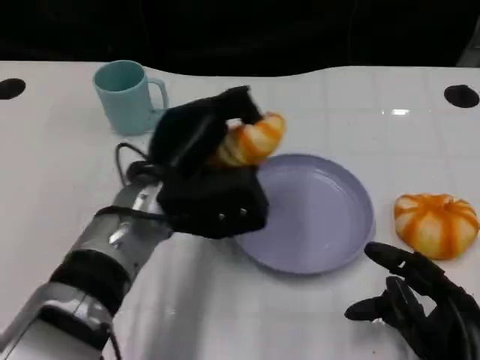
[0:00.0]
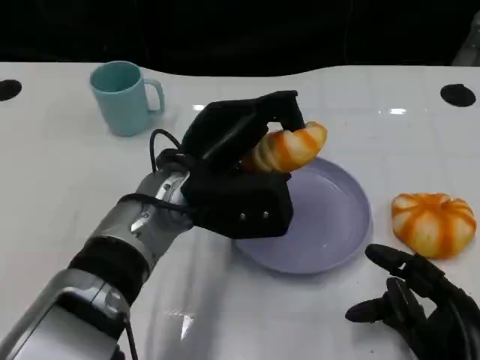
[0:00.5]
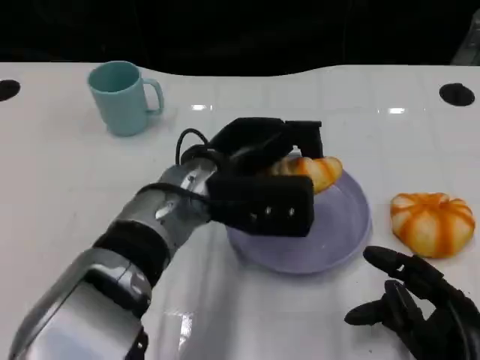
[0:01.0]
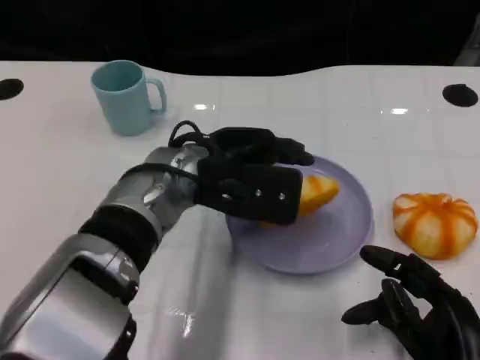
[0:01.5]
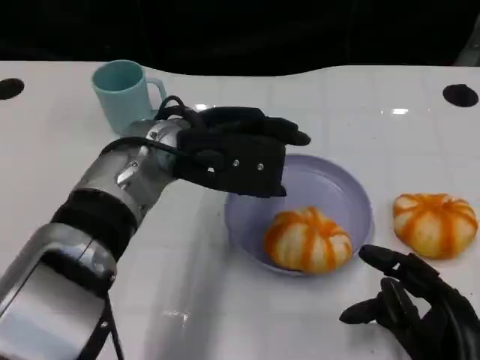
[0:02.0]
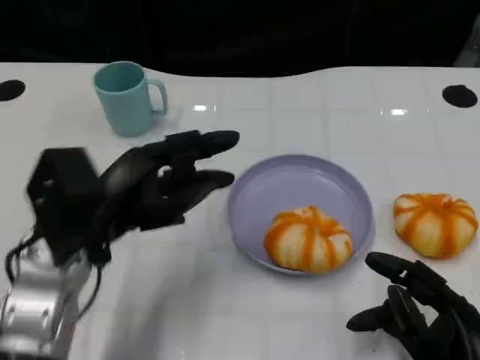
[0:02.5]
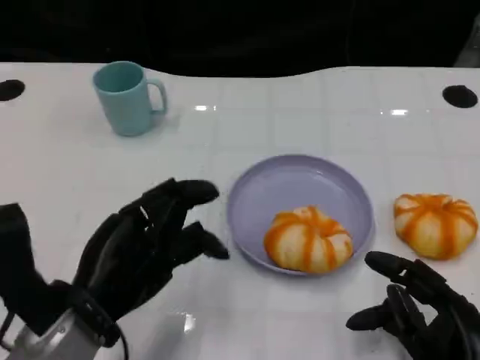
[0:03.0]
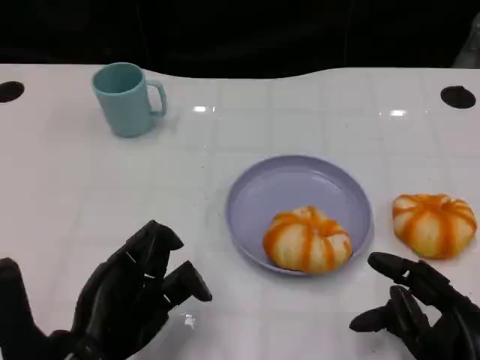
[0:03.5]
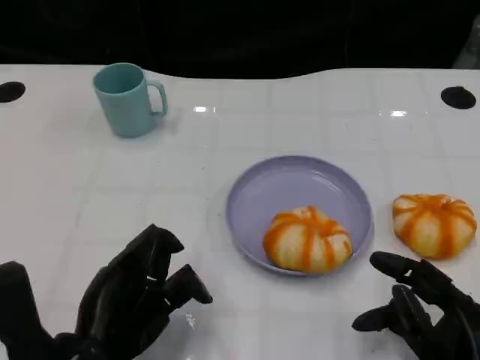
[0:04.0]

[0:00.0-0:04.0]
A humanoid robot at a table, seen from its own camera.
Task of the whole recording: Grasp the bread from the table and place it into the plate.
0.0 to 2.0 s: The left hand shifts by roughly 5 cm.
2.0 to 4.0 s: The left hand is displaced backward, downward and to the left by about 20 cm.

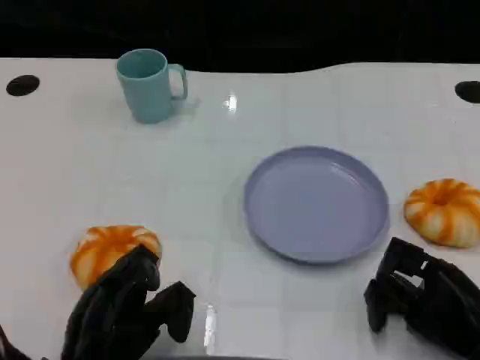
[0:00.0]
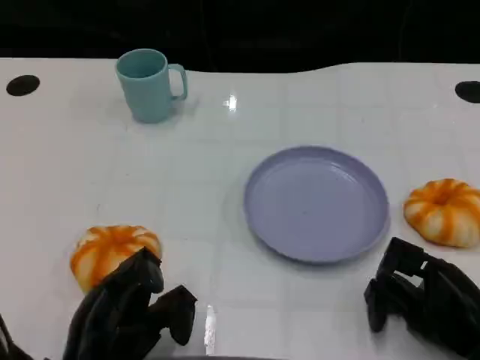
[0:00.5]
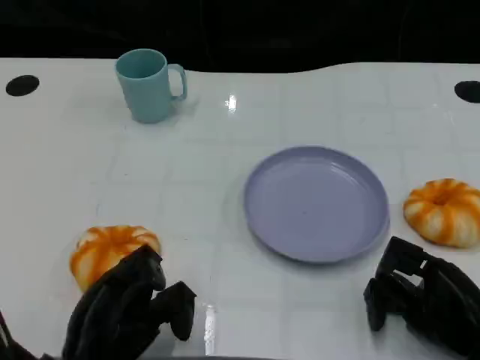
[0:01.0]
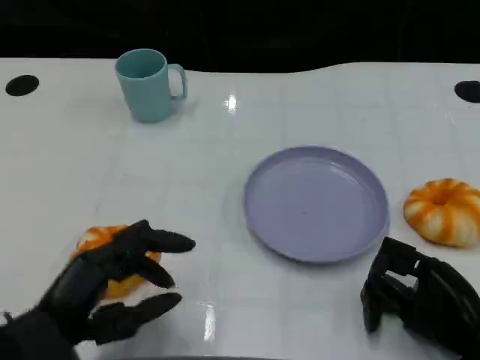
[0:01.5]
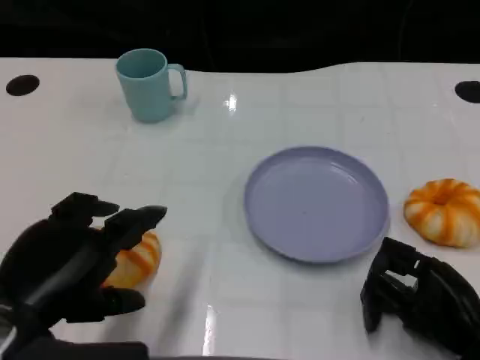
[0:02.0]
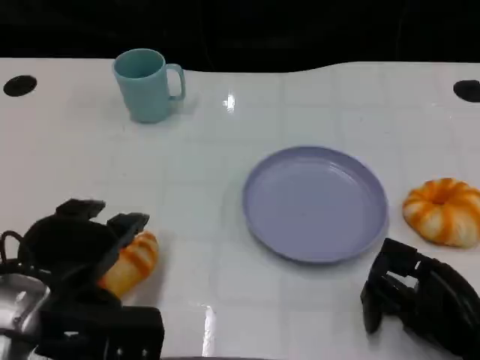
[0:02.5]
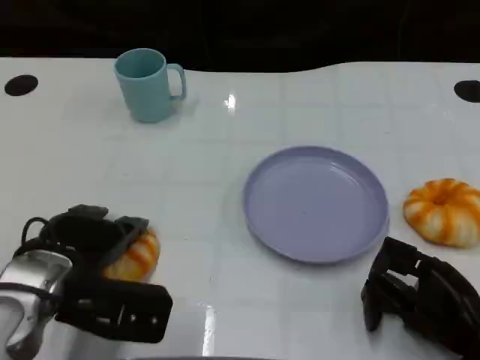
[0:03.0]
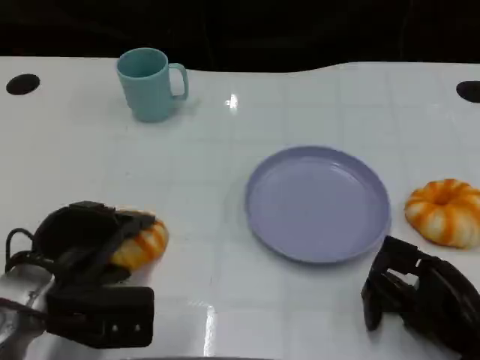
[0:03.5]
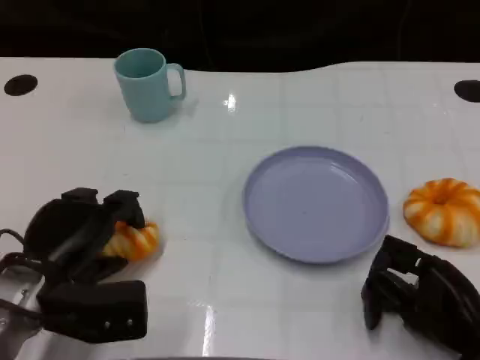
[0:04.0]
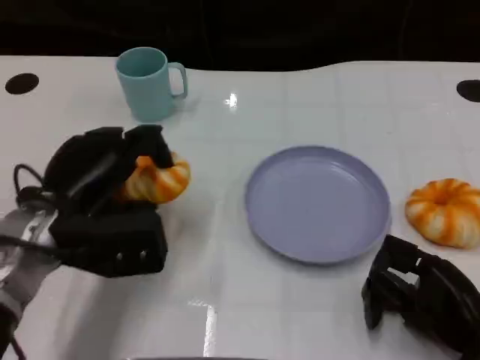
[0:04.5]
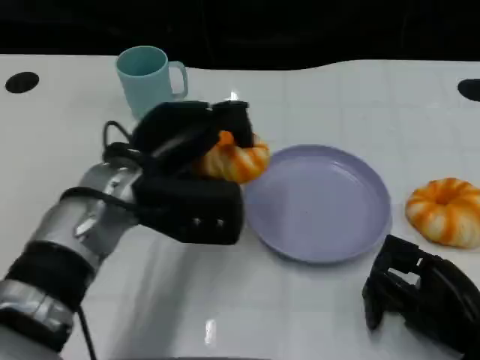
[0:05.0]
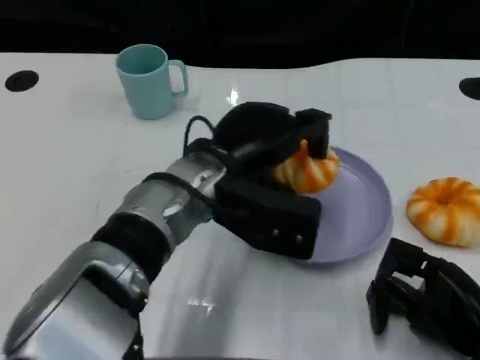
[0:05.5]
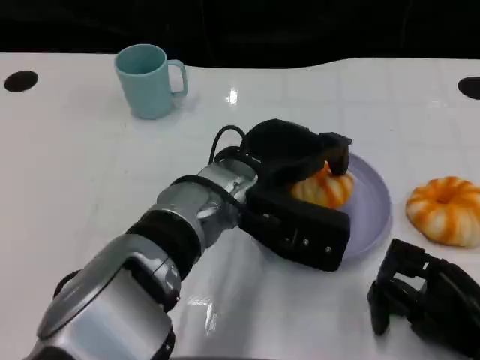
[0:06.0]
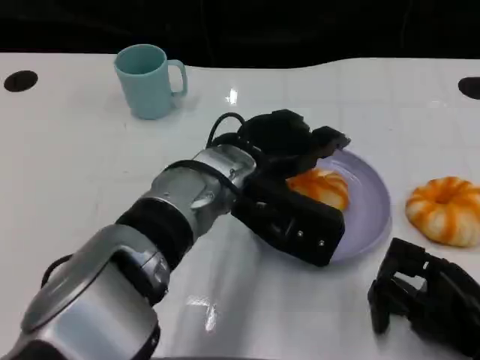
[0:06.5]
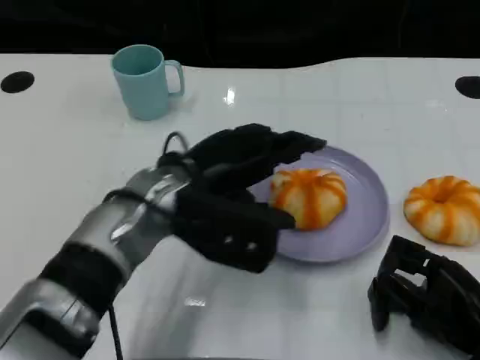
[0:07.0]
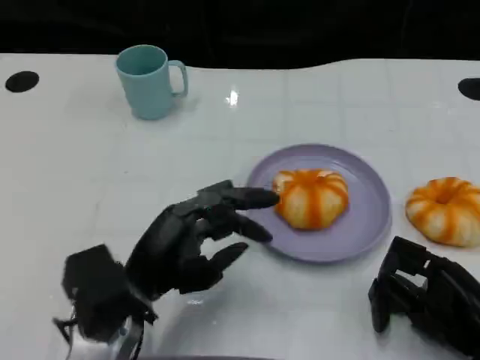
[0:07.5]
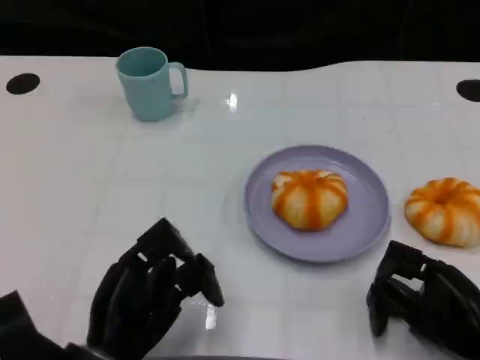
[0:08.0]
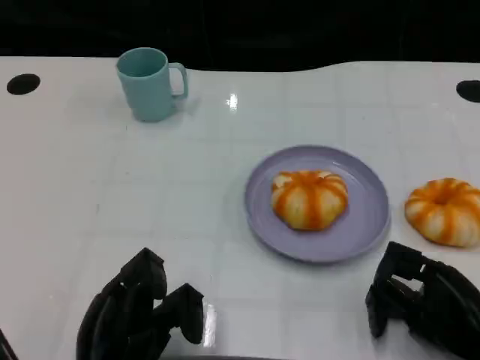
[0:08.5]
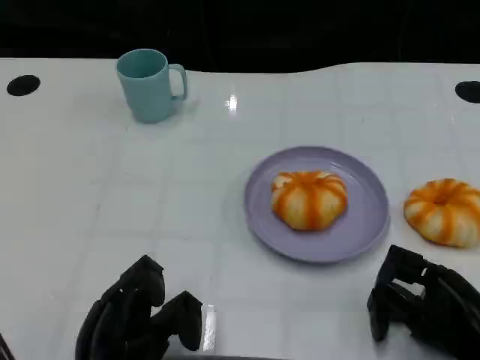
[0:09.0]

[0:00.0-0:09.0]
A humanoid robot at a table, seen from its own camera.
Task of the whole recording: Grasp the bread from the table and place it into the plate.
0.0 to 2.0 s: The left hand shifts approximately 10 cm upward.
2.0 to 4.5 s: The left hand shifts about 10 cm forward.
4.5 to 7.0 s: The left hand moves to the right, some 10 cm.
7.0 to 9.0 s: The left hand shifts roughly 20 cm backward, downward and to the left.

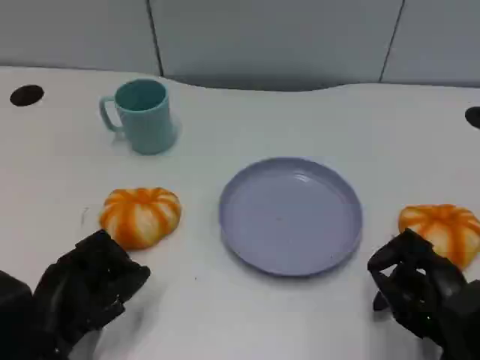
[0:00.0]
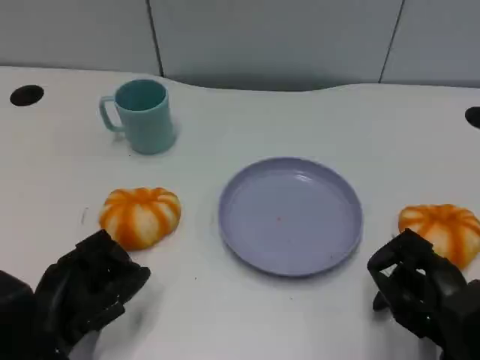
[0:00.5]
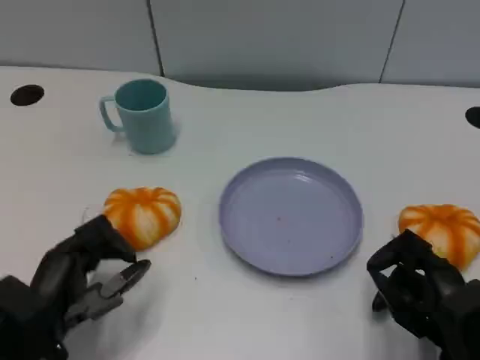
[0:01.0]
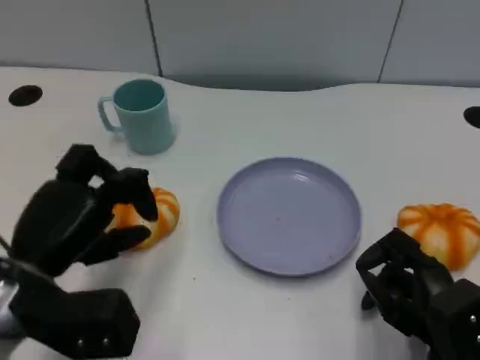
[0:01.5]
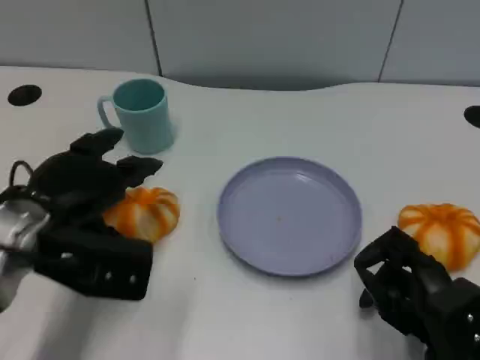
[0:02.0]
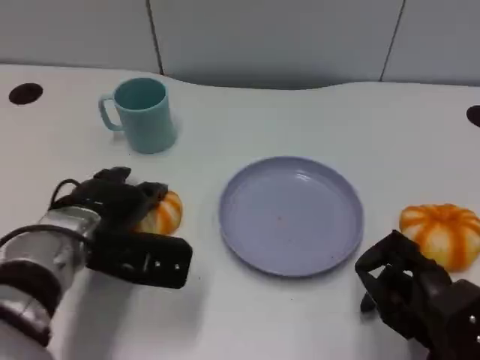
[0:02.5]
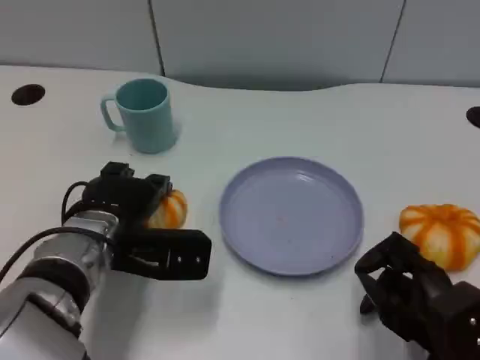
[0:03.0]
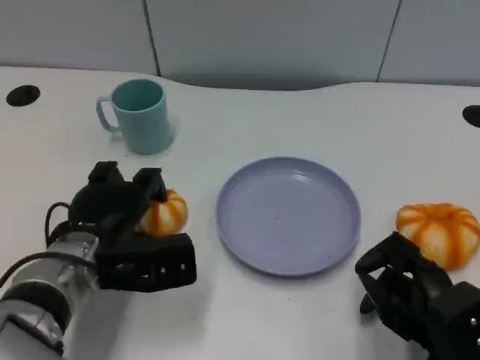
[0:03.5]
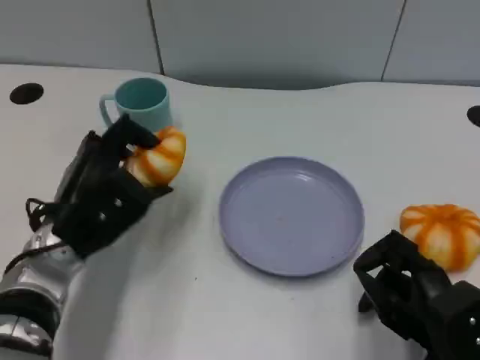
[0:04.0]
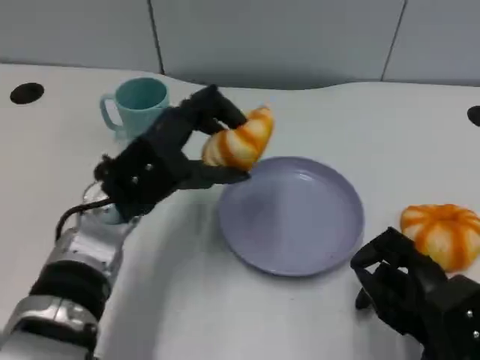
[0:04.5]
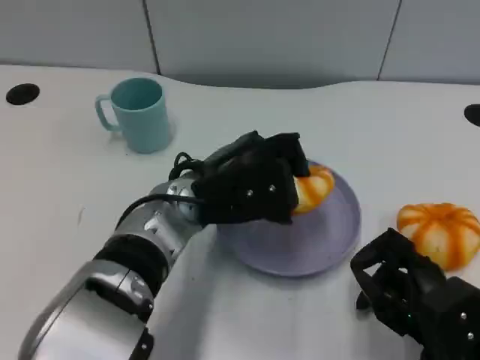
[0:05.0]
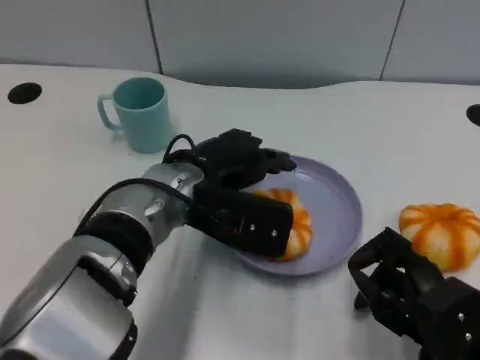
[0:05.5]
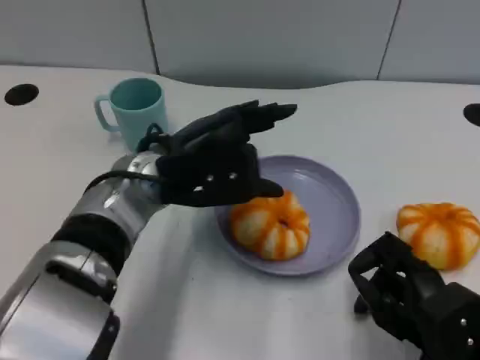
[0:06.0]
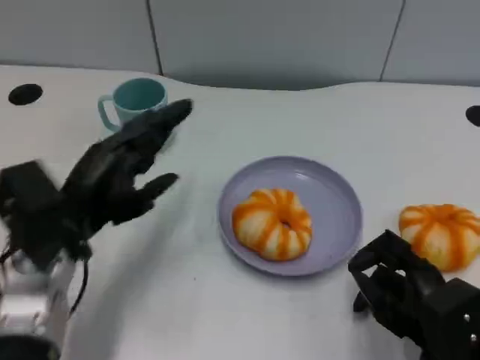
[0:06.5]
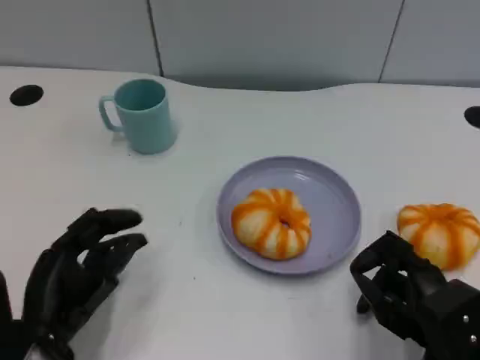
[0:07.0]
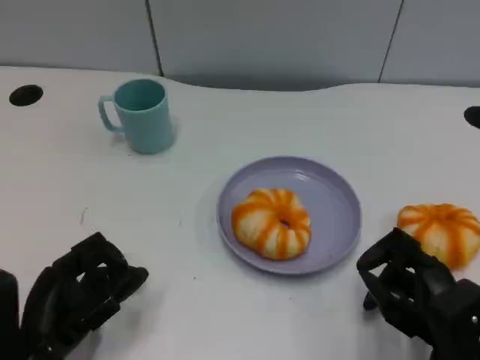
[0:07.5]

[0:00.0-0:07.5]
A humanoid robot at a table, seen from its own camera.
Task of the whole recording: Grasp the bread from the table and place it into the plate.
0.0 to 2.0 s: The left hand shifts about 15 cm upward and forward.
4.0 to 5.5 s: The left hand travels to the right by approximately 10 cm.
5.5 to 7.5 s: The left hand heads to the left, backward and downward, covering approximately 20 cm.

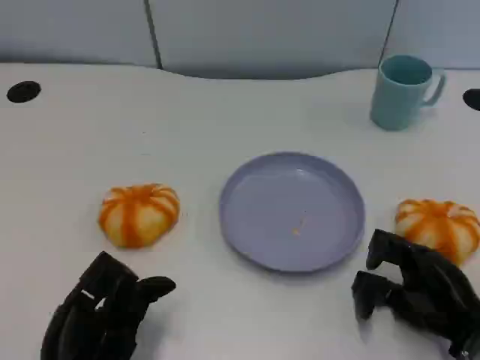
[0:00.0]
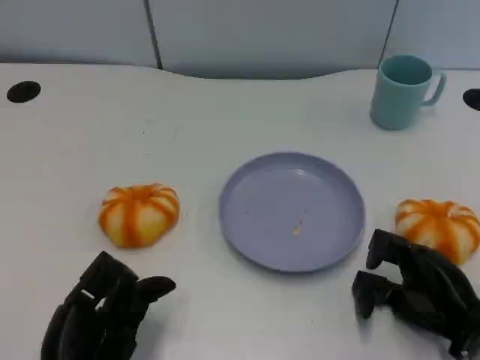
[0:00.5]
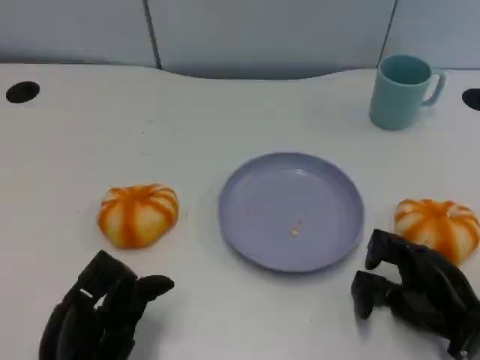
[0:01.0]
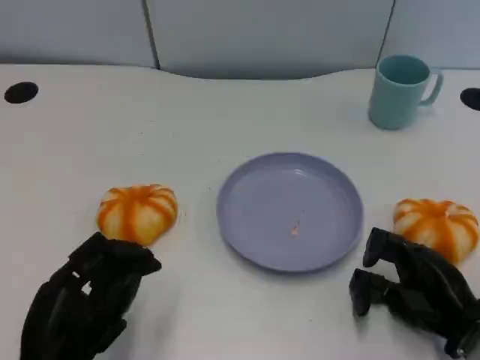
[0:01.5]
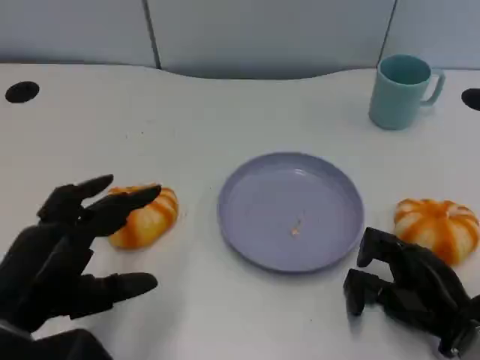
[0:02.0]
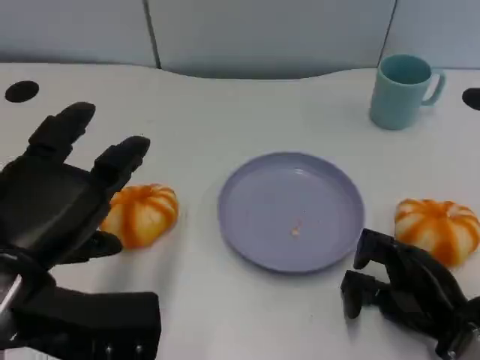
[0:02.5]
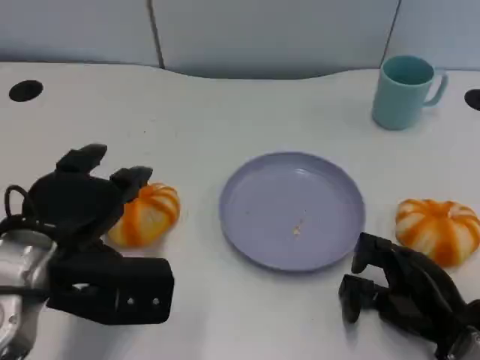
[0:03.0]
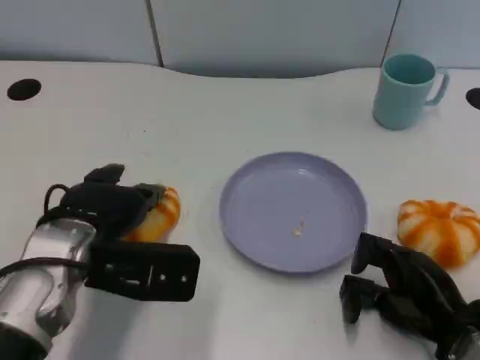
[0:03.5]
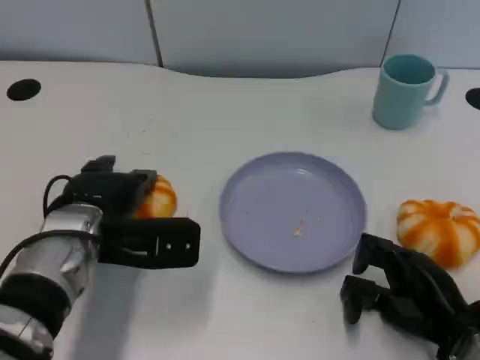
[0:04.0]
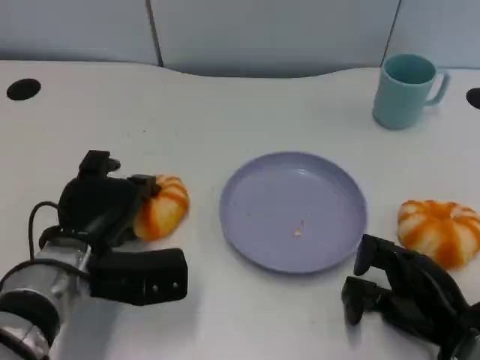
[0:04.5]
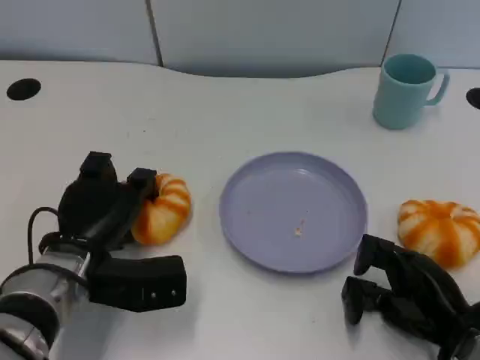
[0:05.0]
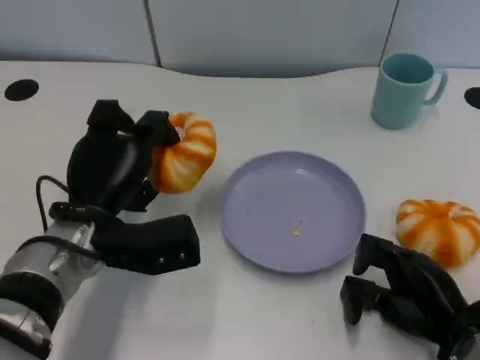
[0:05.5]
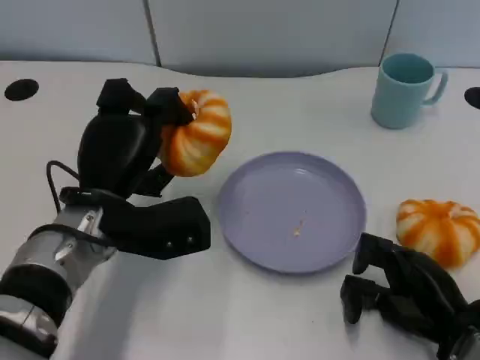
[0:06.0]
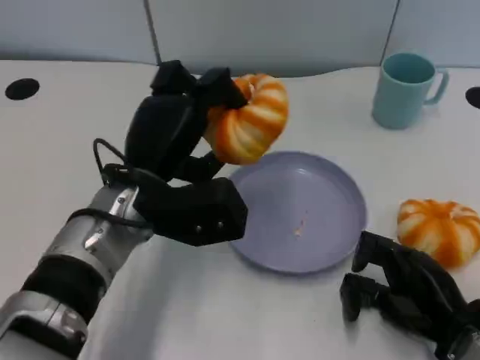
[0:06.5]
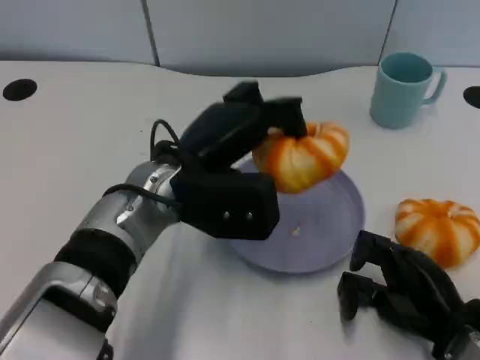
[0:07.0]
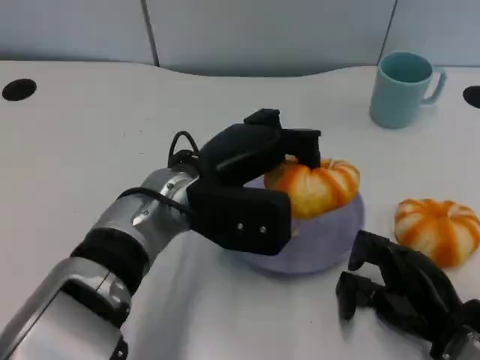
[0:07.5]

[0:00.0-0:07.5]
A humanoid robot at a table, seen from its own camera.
Task of the whole recording: Grasp the bread from the table and place it into the plate.
0.0 to 2.0 s: The left hand goes approximately 10 cm upward.
2.0 to 4.0 s: The left hand moves forward and to the right, roughly 15 cm.
5.5 to 7.5 s: The left hand goes roughly 10 cm to the right and upward.
